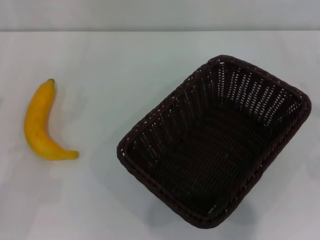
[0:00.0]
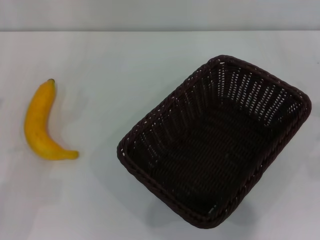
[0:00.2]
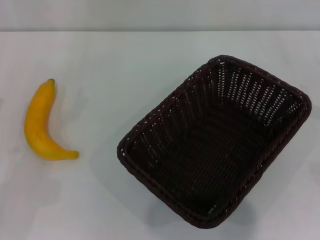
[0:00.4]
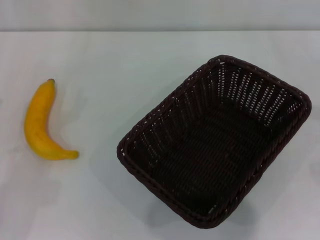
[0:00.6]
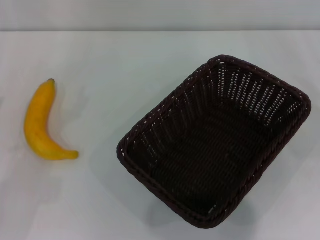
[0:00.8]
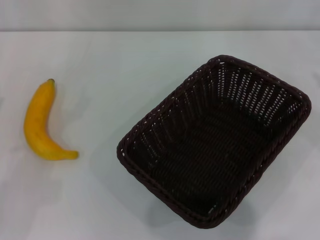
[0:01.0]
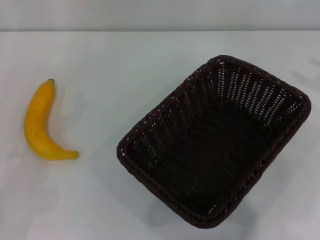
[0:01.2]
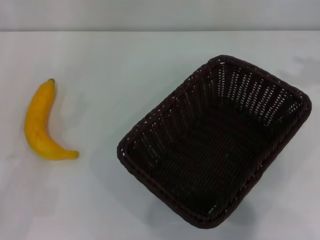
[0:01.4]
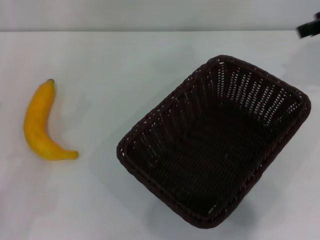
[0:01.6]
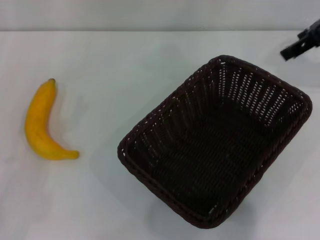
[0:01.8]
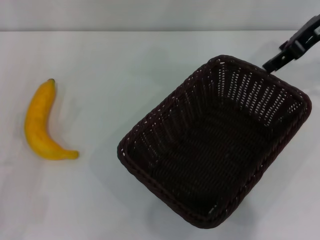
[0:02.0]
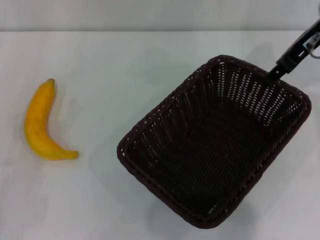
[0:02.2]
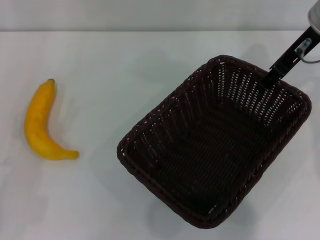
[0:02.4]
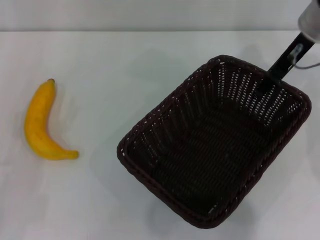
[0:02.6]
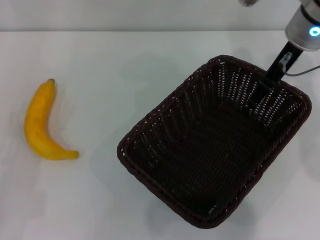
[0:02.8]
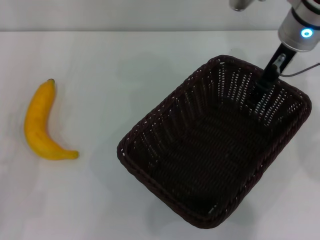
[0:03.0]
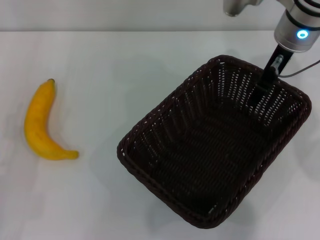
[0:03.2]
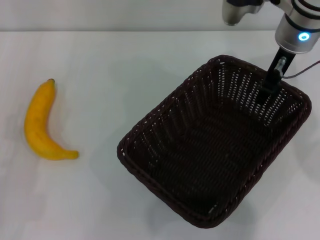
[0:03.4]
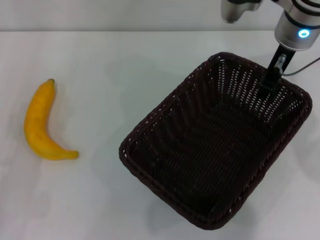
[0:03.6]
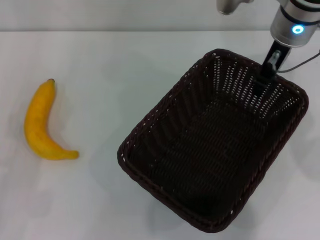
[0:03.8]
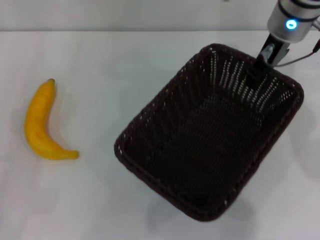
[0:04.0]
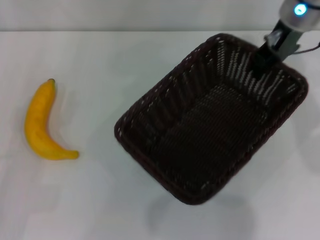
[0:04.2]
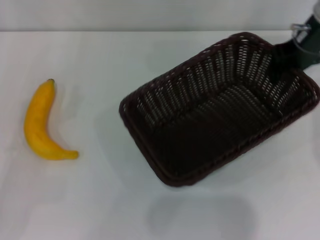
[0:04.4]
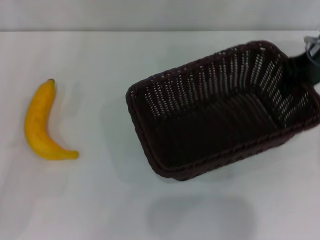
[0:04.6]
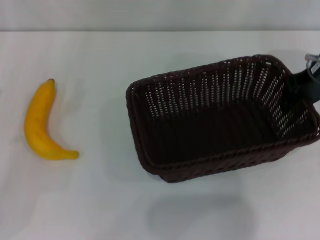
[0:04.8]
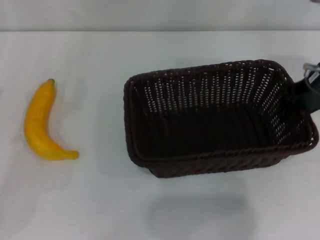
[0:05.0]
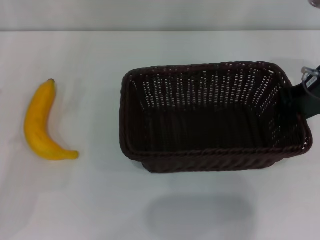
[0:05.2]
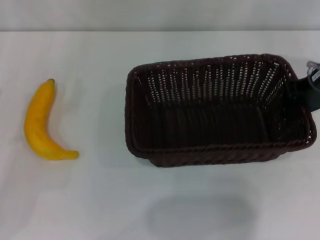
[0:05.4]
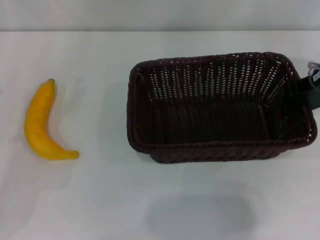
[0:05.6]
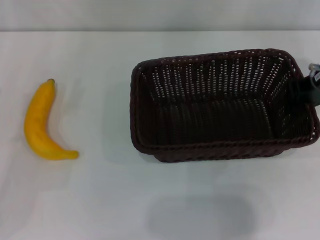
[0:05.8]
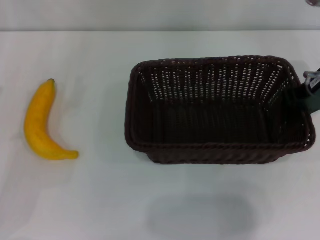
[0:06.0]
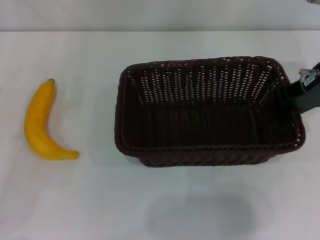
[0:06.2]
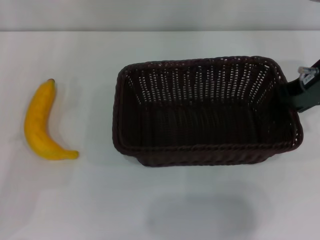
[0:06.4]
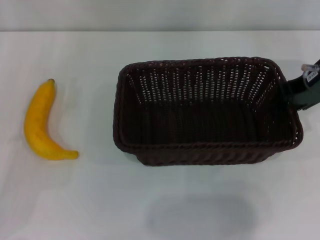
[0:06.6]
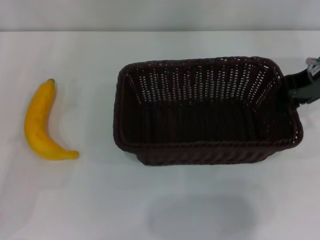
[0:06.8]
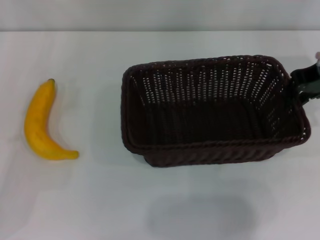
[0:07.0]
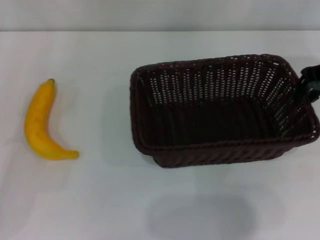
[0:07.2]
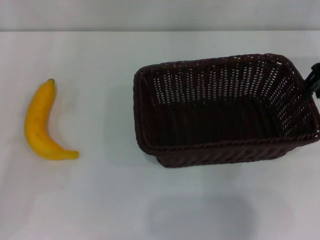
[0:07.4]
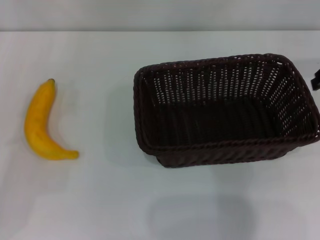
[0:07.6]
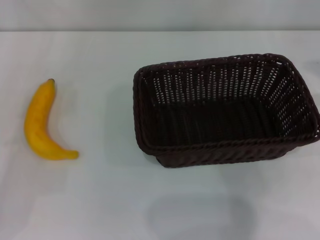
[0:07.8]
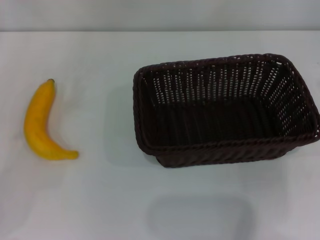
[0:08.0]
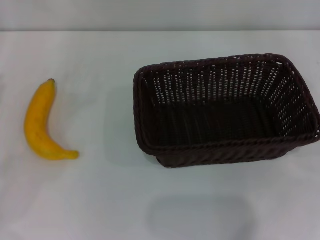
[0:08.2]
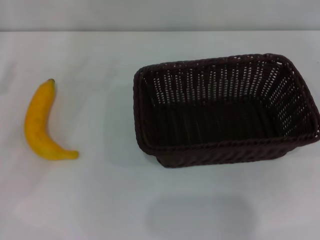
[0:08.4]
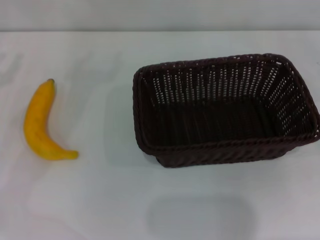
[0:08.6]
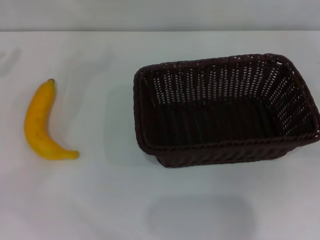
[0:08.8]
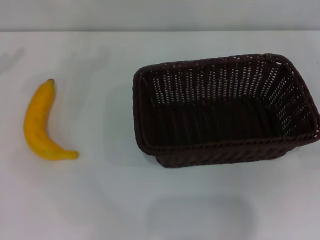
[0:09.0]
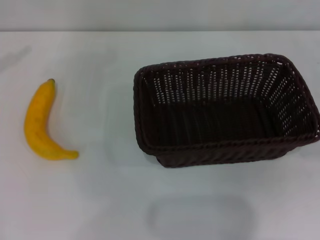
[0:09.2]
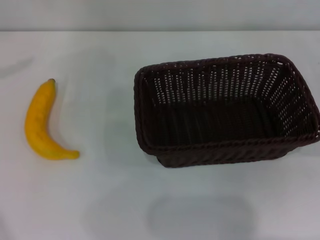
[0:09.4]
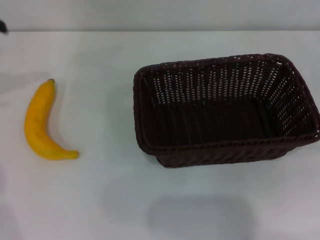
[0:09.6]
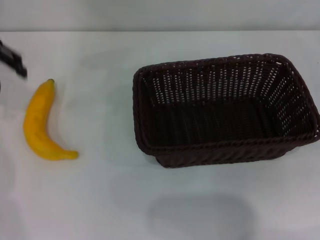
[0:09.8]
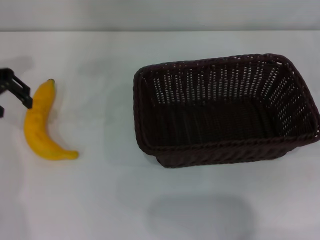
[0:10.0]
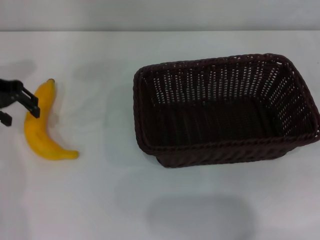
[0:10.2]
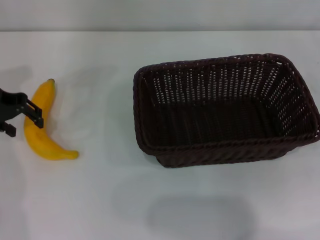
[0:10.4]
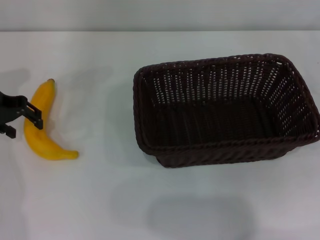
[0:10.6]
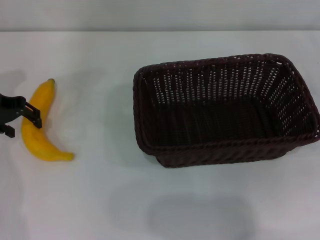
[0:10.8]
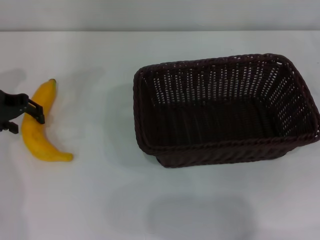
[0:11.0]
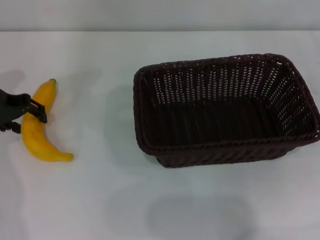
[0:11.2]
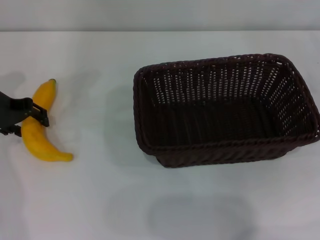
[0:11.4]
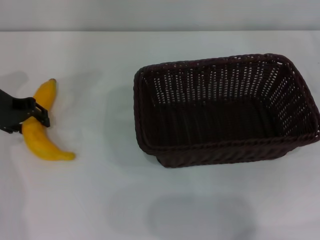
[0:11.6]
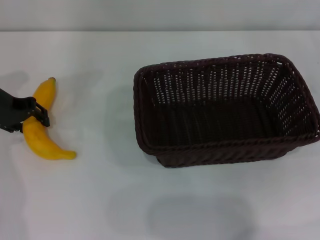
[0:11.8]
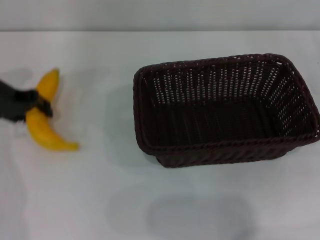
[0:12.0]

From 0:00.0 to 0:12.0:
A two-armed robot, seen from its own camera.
Step, from 0:00.0 to 0:04.4: Pick up the dark basket with the right gripper.
Step, from 0:04.8 to 0:08.0: Place the dark basket in the center of view with the right gripper.
From 0:01.6 to 0:03.0: The right gripper goes some 15 cm to the left and downward.
From 0:03.0 to 0:04.4: The right gripper shifts approximately 5 cm to the right, and closes up.
From 0:04.4 to 0:06.0: The right gripper shifts roughly 5 cm backward.
From 0:06.0 to 0:07.6: The left gripper closes up, while the right gripper travels to the right and upward by about 5 cm.
From 0:07.6 to 0:09.0: The right gripper travels to the right, downward and backward by approximately 25 cm.
From 0:09.0 to 0:10.4: The left gripper moves to the right and downward, about 10 cm.
From 0:10.4 to 0:12.0: The left gripper closes.

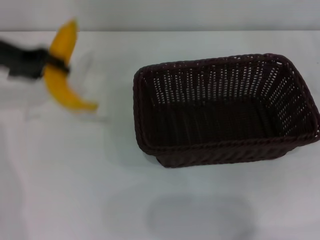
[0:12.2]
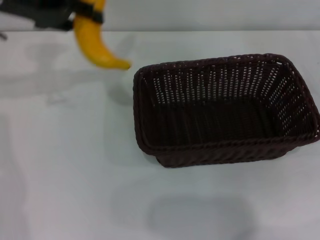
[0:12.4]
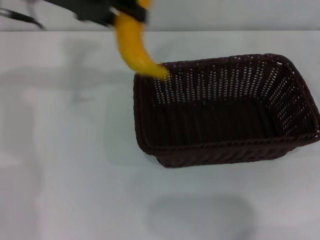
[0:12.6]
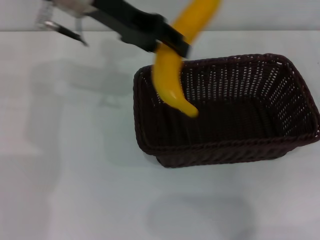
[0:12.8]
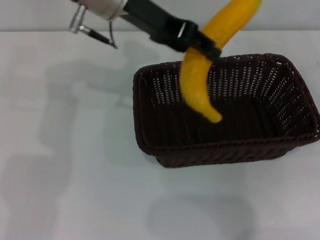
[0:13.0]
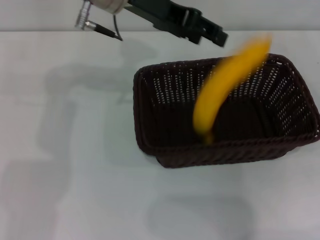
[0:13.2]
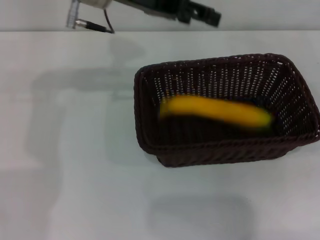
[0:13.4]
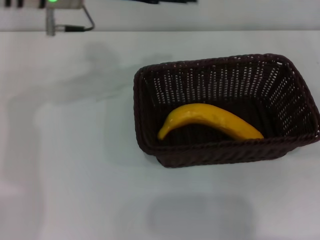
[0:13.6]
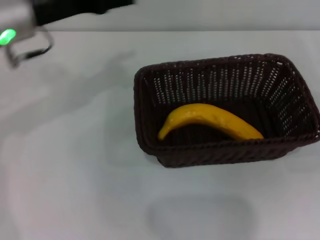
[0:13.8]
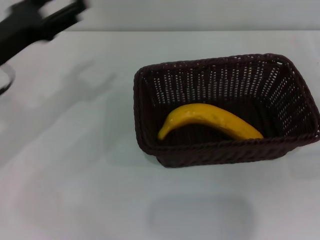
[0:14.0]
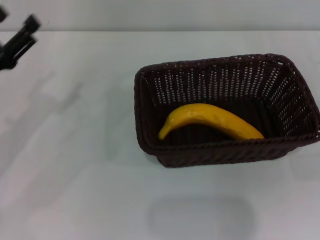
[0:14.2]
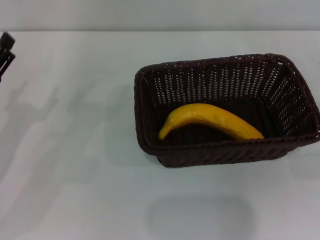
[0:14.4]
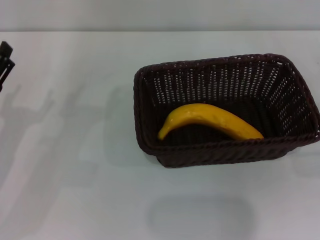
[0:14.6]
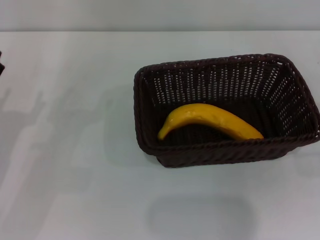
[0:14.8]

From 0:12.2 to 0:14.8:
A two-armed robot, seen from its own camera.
Step, from 0:12.4 to 0:13.2: Place the banana into the dark basket with the left gripper.
From 0:12.2 to 0:13.4: The left gripper moves to the right, about 15 cm, and opens.
From 0:13.4 to 0:14.8: The left gripper goes about 35 cm downward, to the left and backward, and opens up, while the right gripper changes place by about 5 cm.
